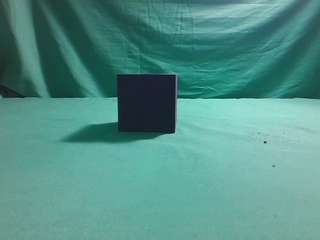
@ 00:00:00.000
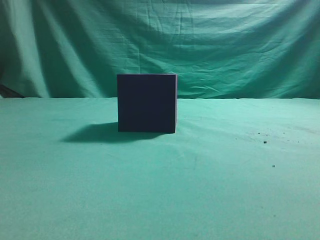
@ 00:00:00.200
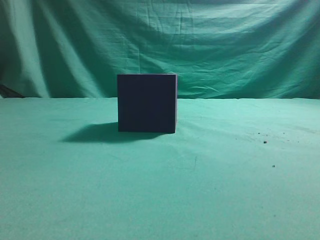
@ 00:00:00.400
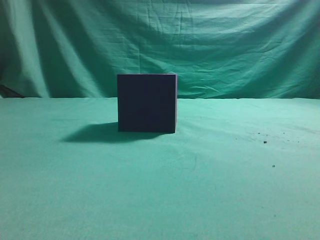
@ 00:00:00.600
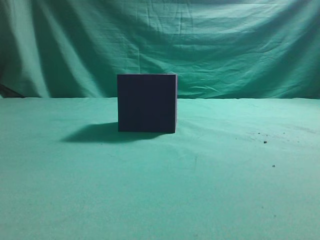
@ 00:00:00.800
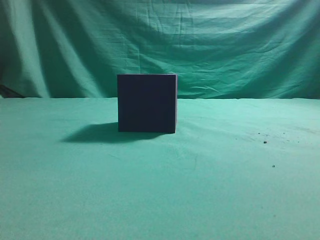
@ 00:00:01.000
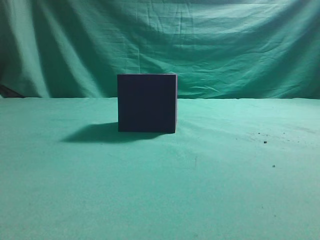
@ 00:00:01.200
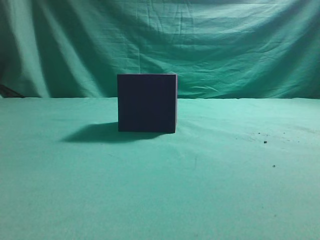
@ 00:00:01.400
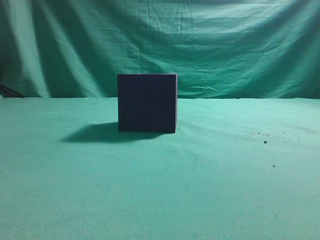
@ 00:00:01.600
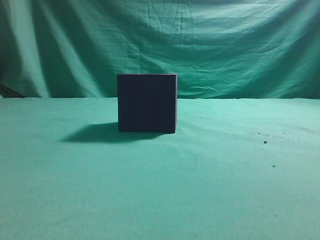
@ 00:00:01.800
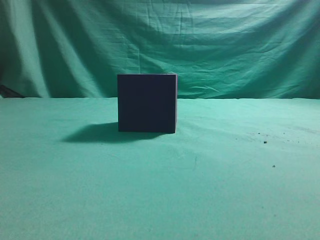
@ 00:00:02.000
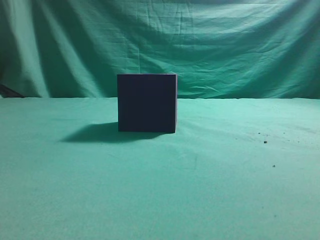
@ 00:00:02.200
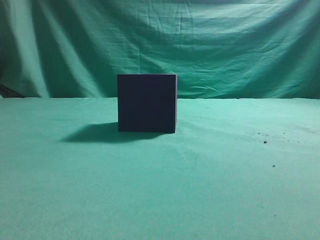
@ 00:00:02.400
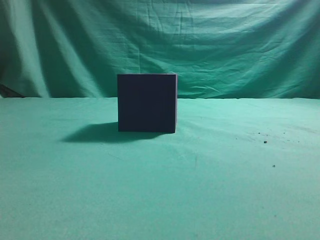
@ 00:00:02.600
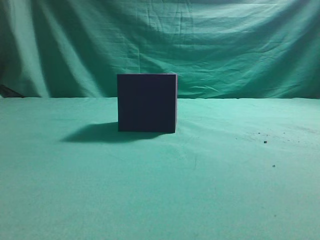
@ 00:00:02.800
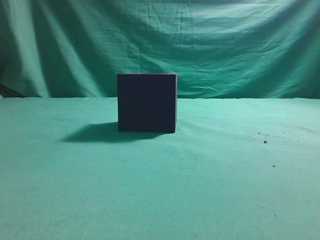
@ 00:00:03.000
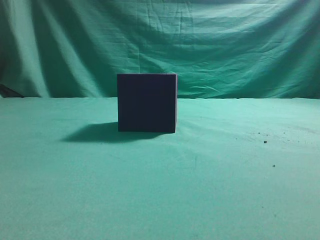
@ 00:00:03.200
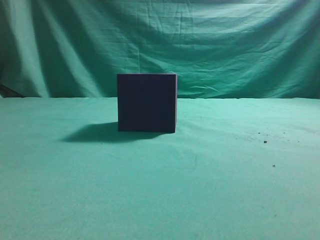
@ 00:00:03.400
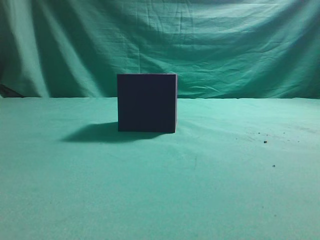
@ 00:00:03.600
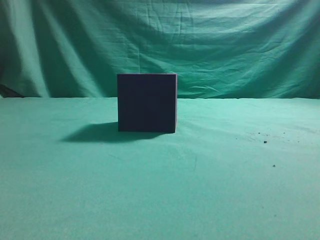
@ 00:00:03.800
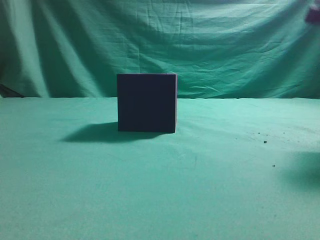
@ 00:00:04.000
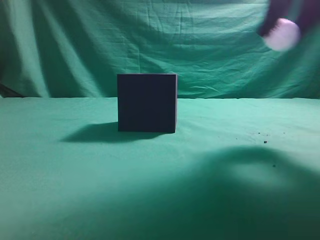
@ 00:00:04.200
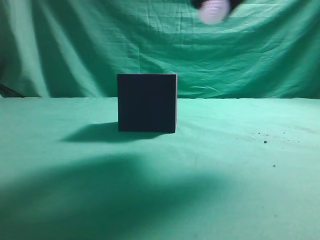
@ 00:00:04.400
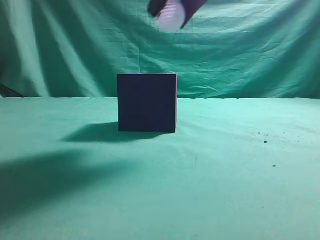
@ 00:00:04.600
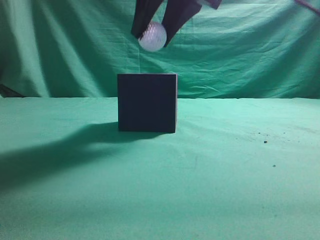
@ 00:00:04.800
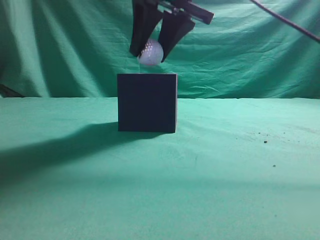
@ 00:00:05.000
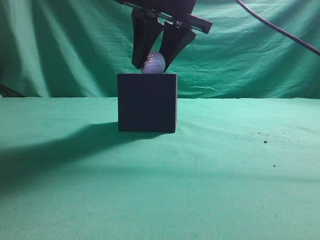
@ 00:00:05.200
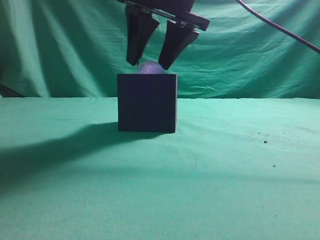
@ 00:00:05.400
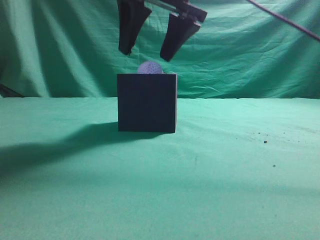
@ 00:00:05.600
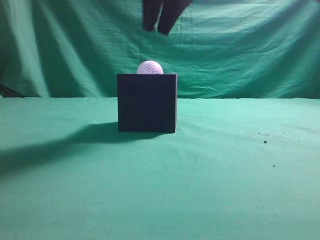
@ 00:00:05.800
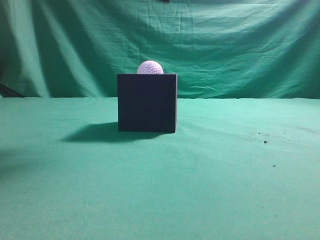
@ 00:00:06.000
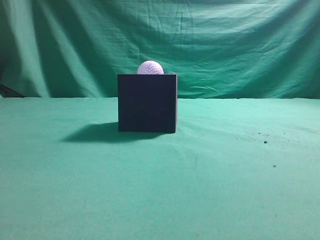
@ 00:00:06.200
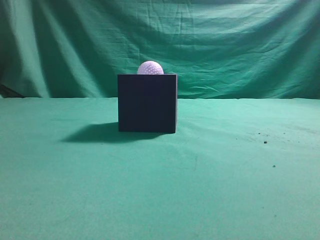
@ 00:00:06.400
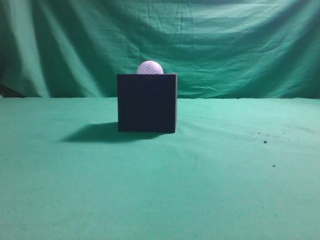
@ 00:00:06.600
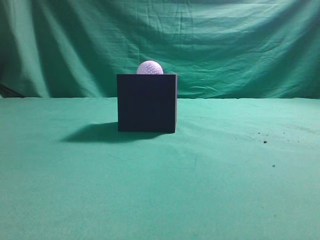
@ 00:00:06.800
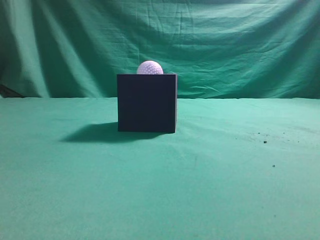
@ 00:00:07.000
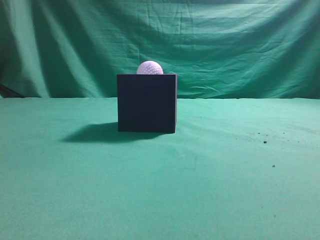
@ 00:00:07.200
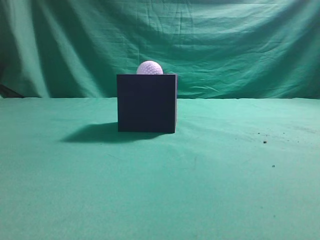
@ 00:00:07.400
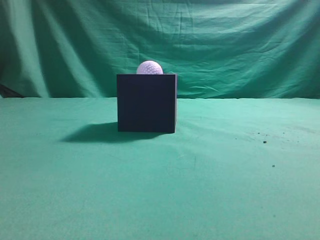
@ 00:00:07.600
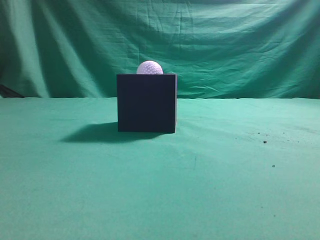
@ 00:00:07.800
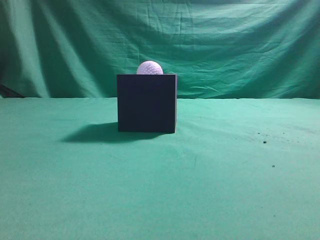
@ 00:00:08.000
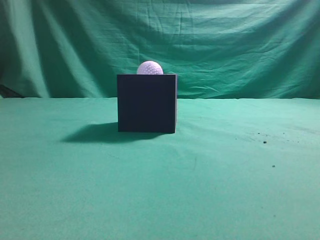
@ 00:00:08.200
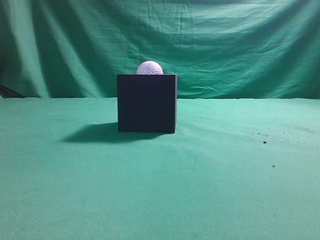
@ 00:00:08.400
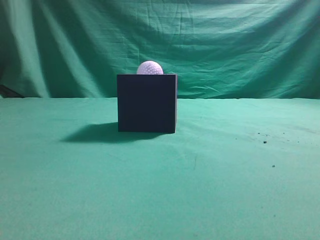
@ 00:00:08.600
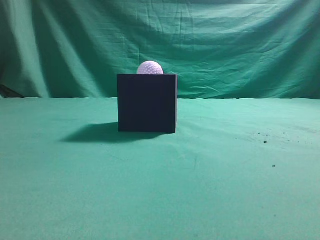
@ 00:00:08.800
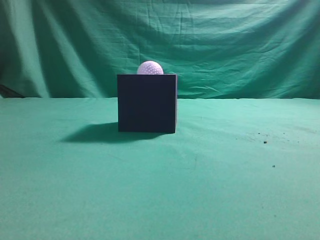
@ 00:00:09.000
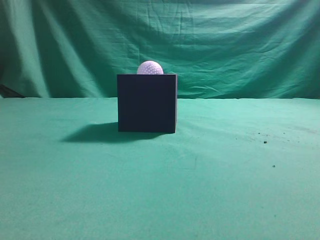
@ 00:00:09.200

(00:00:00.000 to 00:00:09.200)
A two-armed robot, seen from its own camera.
Task of the whole recording: Pick up the ball and place it in the circular groove above the cube.
Step, 00:00:00.000 - 00:00:04.000: Grasp the sphere on the table.
Step, 00:00:04.200 - 00:00:05.600: Place the sphere into the sphere-shaped recess.
00:00:03.000 - 00:00:04.600: The right gripper heads to the left and upward, covering roughly 20 cm.
00:00:04.600 - 00:00:06.200: The right gripper moves upward, some 10 cm, and closes.

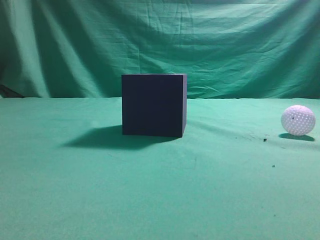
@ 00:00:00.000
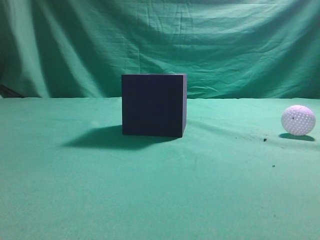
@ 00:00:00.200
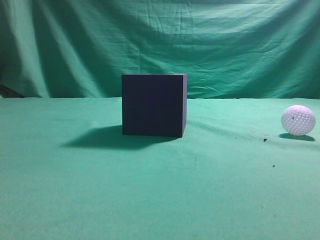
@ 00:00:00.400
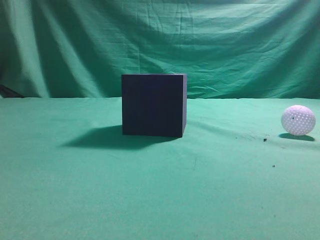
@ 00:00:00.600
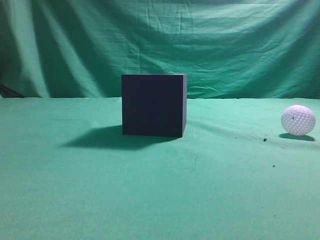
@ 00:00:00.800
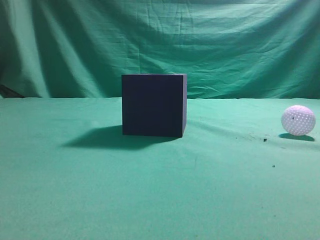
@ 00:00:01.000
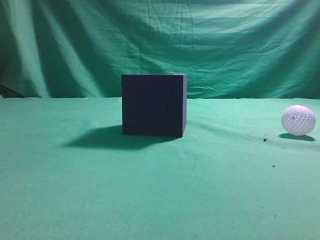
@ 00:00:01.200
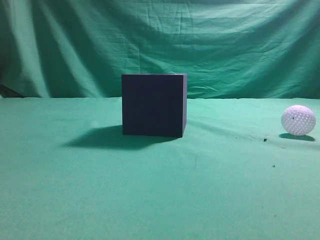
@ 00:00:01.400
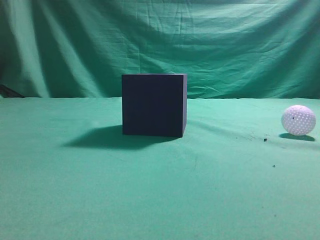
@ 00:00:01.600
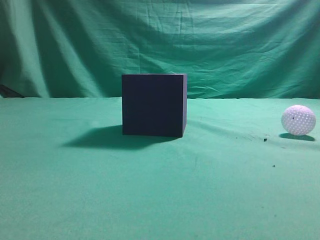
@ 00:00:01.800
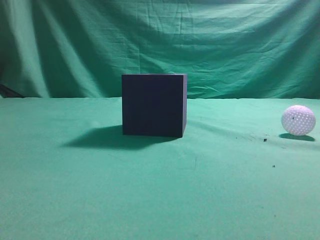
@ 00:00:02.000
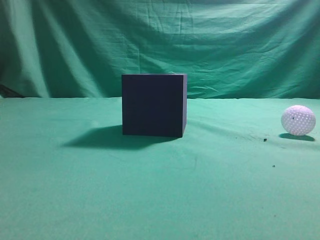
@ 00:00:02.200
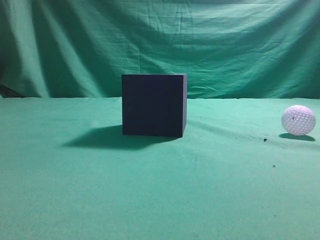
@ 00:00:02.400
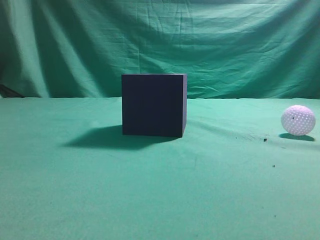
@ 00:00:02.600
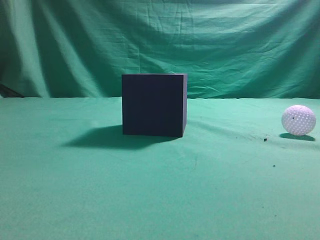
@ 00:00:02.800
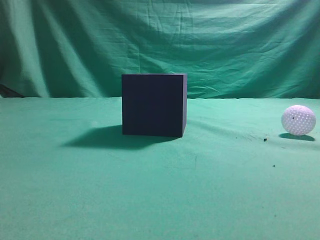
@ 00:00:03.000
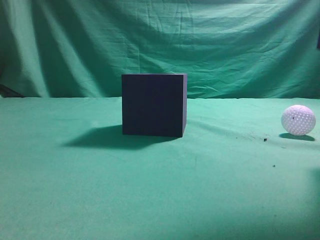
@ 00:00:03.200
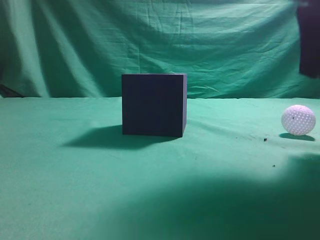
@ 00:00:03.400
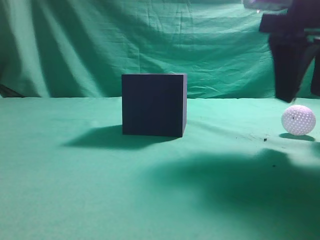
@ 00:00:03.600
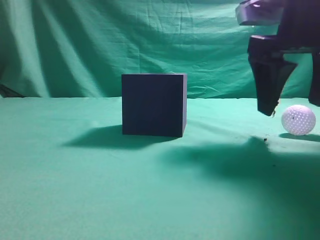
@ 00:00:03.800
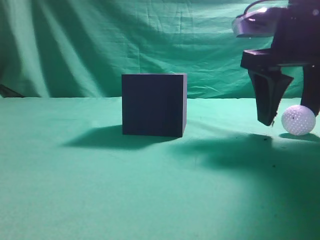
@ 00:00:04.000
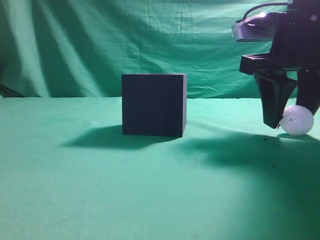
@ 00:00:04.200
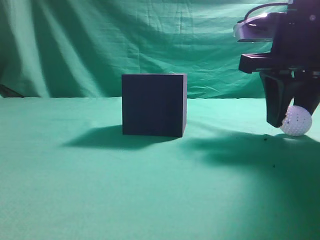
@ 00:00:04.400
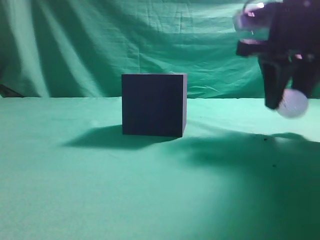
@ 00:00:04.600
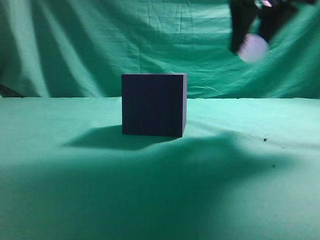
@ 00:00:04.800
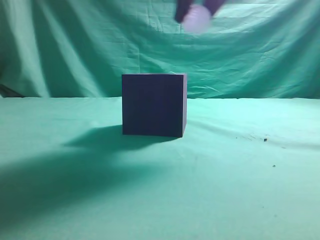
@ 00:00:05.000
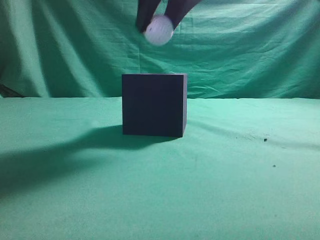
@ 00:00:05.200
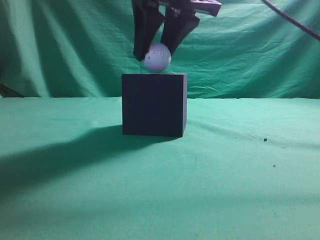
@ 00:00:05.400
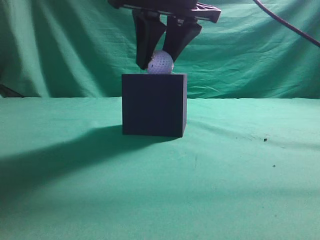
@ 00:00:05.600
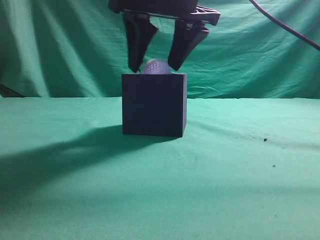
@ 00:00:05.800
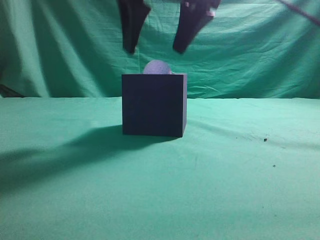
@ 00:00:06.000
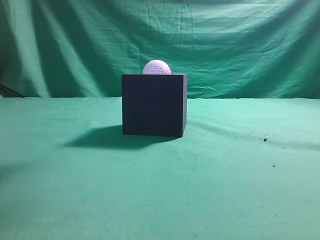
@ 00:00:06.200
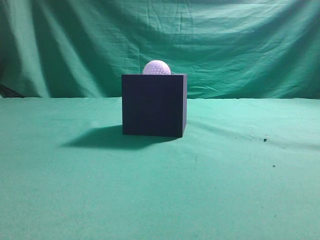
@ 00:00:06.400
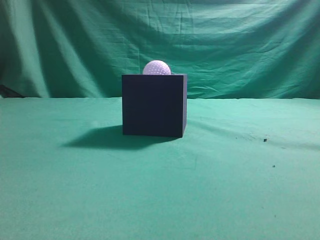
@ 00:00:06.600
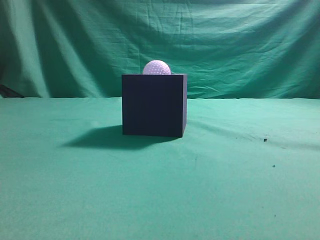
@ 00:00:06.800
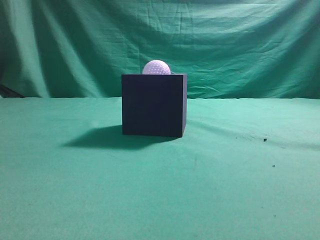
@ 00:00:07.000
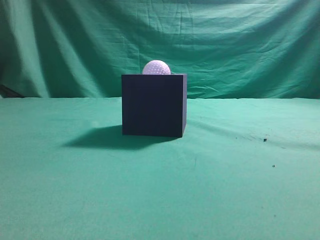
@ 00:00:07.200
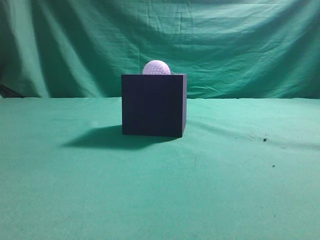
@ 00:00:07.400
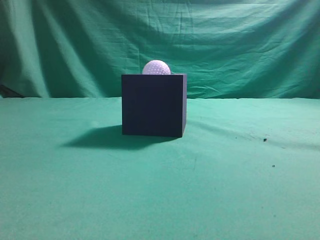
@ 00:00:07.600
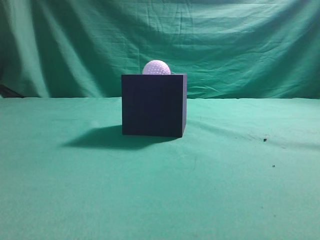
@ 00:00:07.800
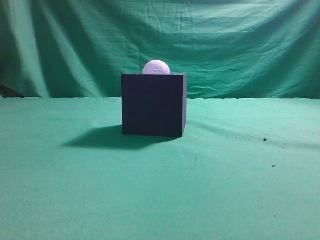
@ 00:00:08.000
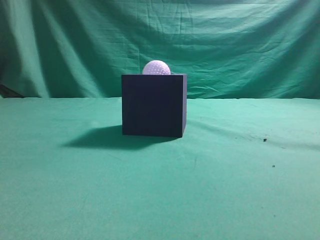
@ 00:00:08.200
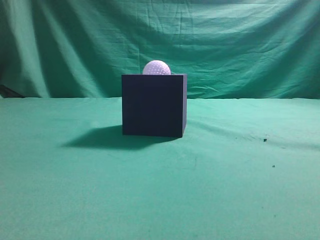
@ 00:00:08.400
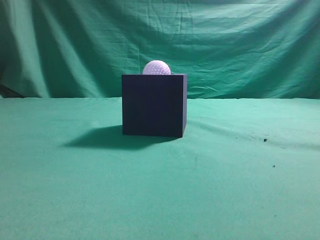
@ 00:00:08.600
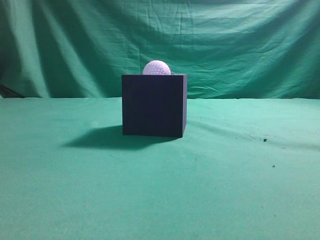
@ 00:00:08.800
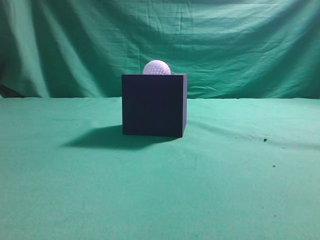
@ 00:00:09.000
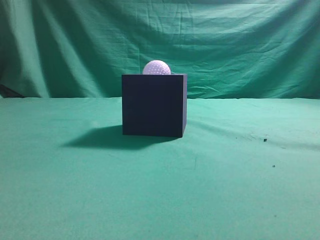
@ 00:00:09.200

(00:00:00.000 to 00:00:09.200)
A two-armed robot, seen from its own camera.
Task of the whole recording: Pick up the ball and place it in the circular groove above the cube.
Step, 00:00:00.000 - 00:00:04.600: Grasp the sphere on the table.
Step, 00:00:04.800 - 00:00:06.000: Place the sphere into the sphere-shaped recess.
00:00:03.000 - 00:00:04.600: The right gripper heads forward, downward and to the left, covering about 15 cm, and opens up.
00:00:04.600 - 00:00:06.200: The right gripper heads upward and to the left, covering about 20 cm, and opens, then closes again.
